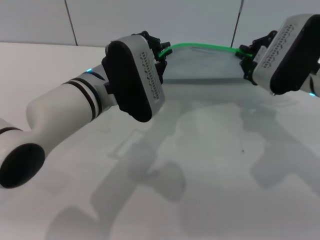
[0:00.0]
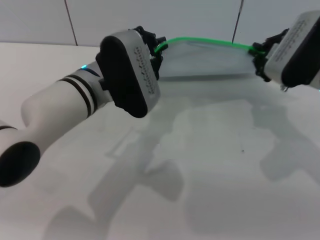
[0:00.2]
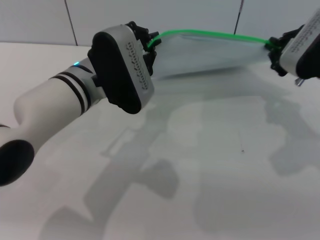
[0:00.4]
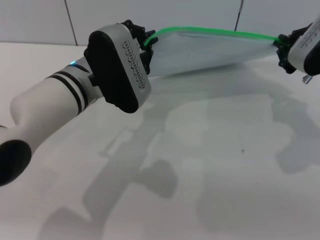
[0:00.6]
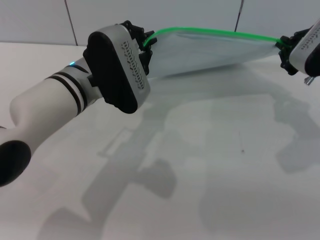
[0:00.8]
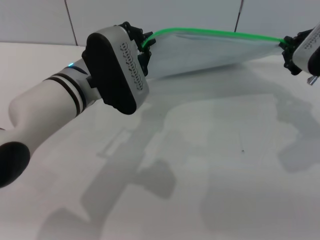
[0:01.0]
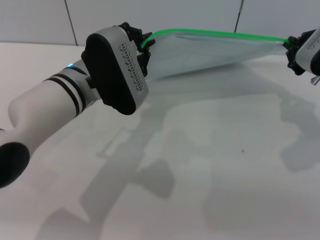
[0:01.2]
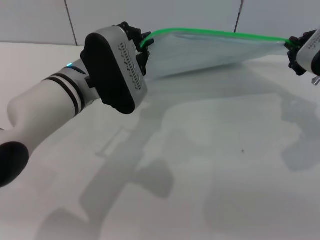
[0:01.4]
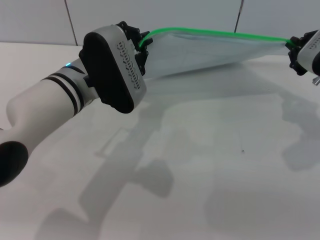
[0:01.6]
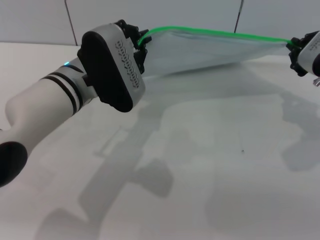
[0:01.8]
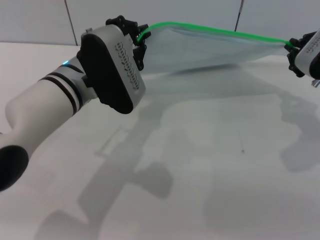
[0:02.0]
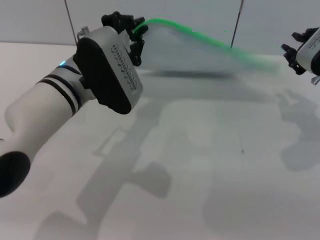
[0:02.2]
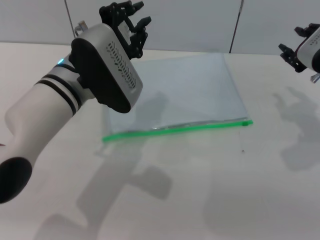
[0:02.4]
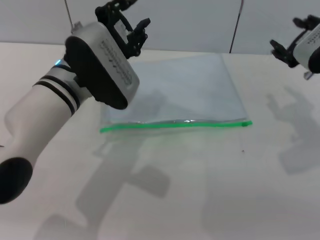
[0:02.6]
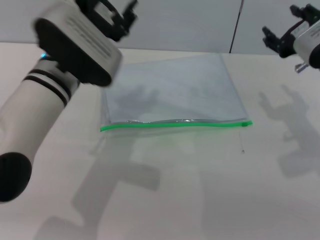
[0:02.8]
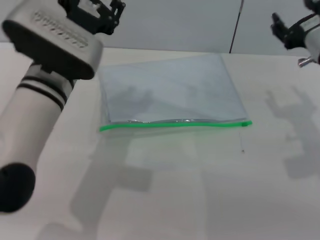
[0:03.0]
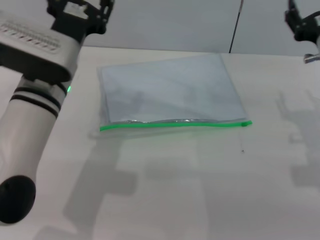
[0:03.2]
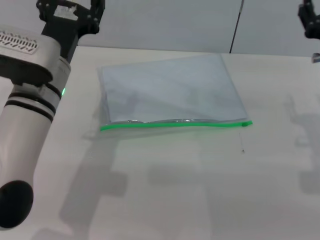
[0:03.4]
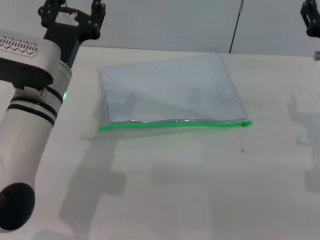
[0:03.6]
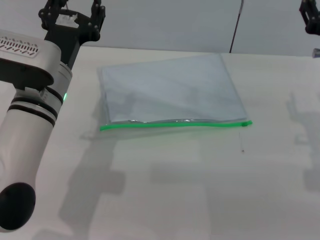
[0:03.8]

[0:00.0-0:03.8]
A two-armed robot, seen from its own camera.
Step, 0:00.0 to 0:02.0: Pulling up the zipper on the transparent plastic bag with the right gripper to close it.
Step, 0:02.4 to 0:03.0: Place the transparent plastic bag.
0:00.0 to 0:01.2: The right gripper travels to the right by about 5 cm.
0:01.2 to 0:02.6: The right gripper opens its fingers. Meanwhile the left gripper opens.
0:02.6 to 0:03.8: The right gripper opens its fingers, while the left gripper opens its fingers.
